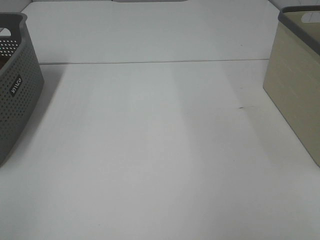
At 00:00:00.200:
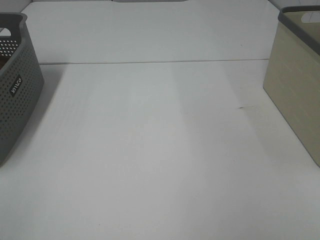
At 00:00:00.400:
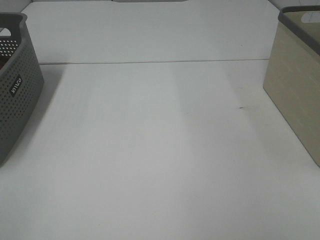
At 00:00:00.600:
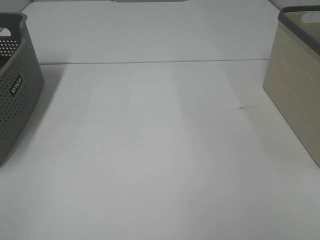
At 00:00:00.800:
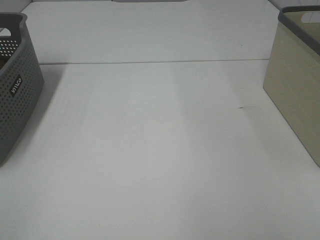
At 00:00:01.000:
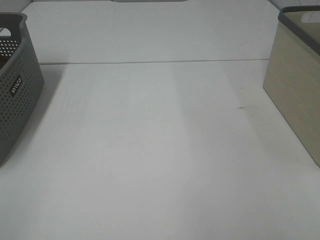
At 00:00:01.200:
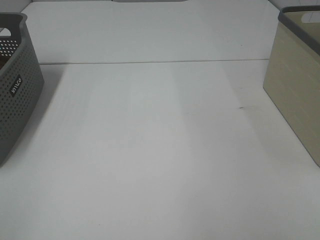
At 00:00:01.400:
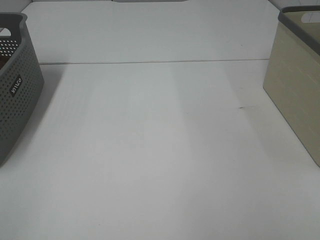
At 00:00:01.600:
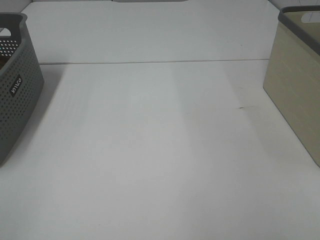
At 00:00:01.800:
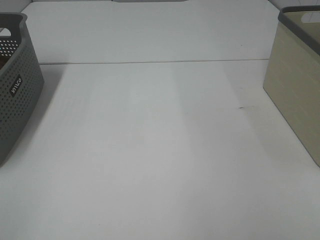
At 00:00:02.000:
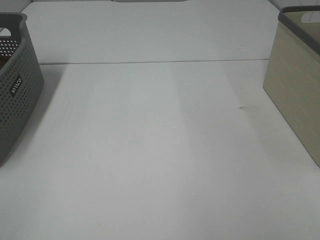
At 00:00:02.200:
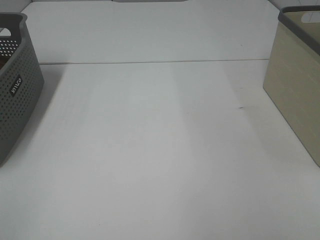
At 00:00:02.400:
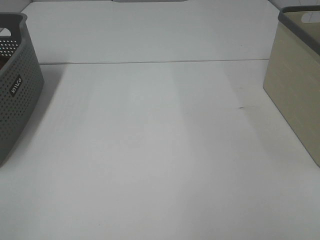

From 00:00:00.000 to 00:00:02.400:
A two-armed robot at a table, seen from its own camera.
From 00:00:01.200 to 00:00:02.400: The two grippers keep their place.

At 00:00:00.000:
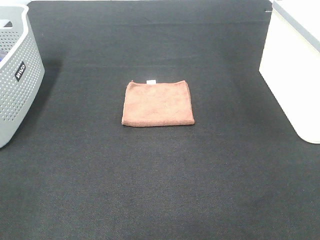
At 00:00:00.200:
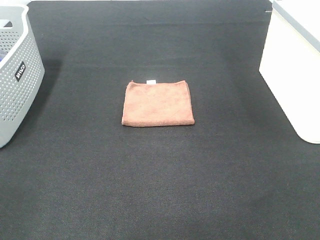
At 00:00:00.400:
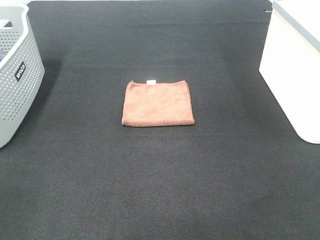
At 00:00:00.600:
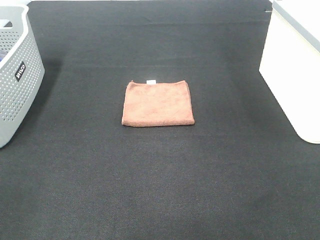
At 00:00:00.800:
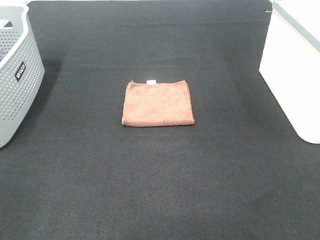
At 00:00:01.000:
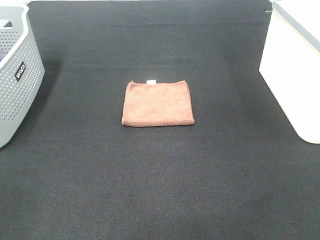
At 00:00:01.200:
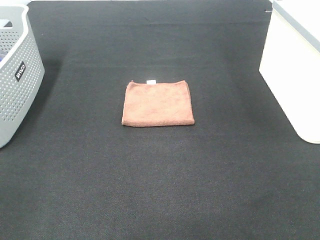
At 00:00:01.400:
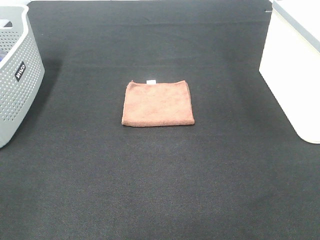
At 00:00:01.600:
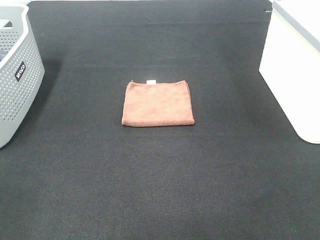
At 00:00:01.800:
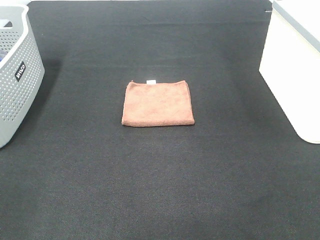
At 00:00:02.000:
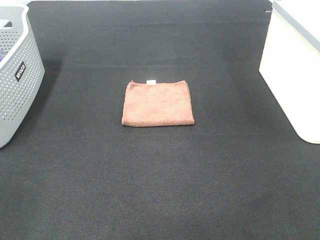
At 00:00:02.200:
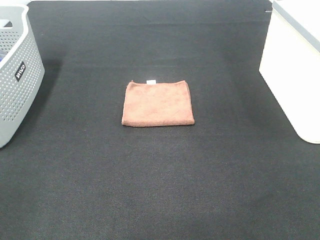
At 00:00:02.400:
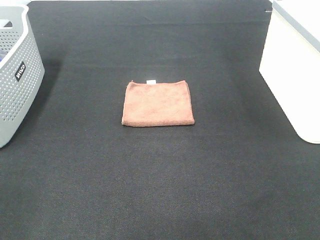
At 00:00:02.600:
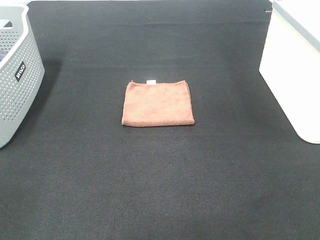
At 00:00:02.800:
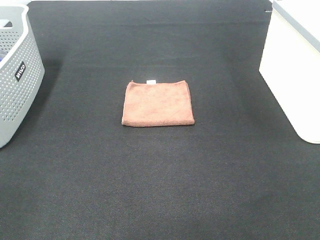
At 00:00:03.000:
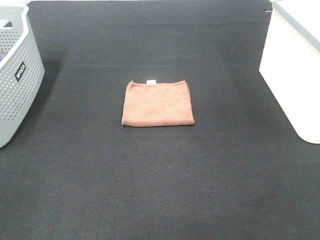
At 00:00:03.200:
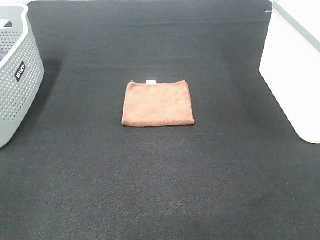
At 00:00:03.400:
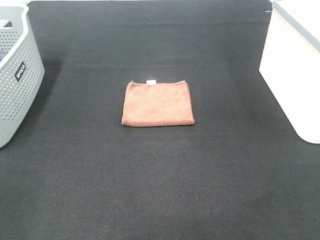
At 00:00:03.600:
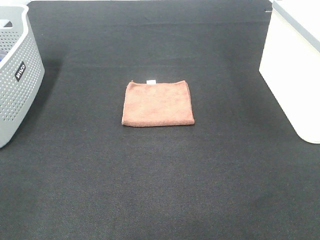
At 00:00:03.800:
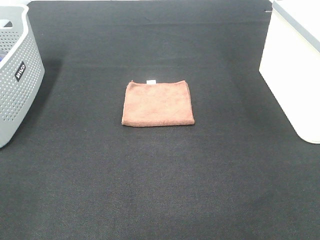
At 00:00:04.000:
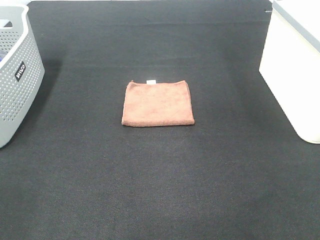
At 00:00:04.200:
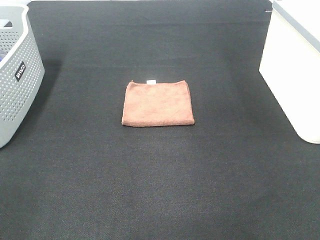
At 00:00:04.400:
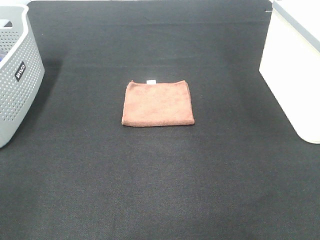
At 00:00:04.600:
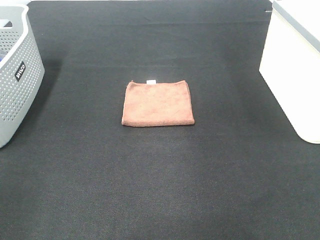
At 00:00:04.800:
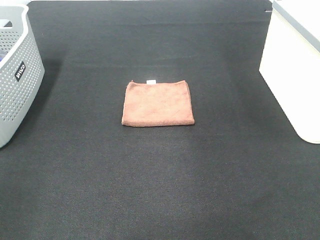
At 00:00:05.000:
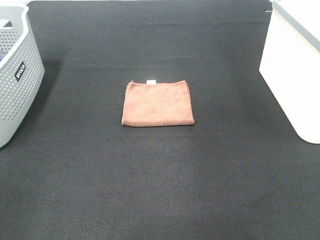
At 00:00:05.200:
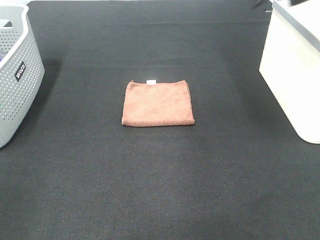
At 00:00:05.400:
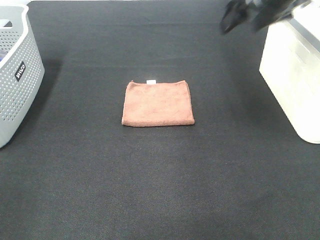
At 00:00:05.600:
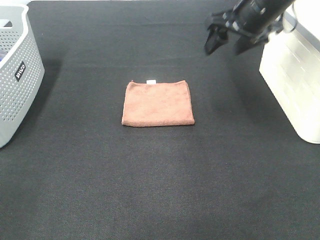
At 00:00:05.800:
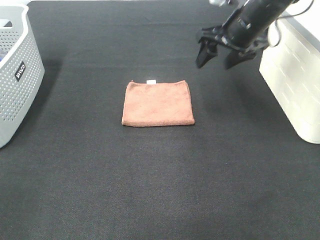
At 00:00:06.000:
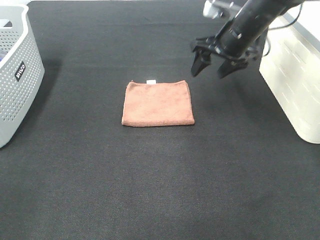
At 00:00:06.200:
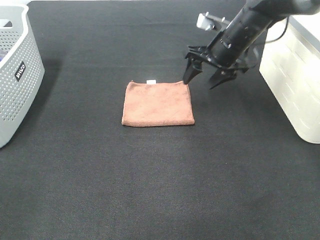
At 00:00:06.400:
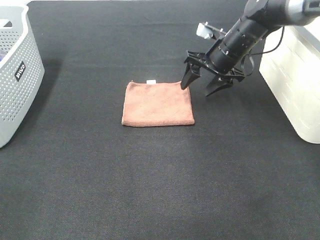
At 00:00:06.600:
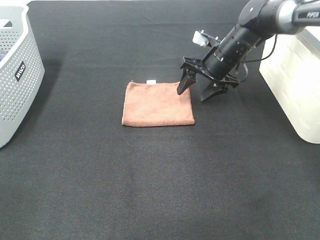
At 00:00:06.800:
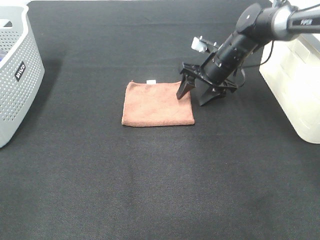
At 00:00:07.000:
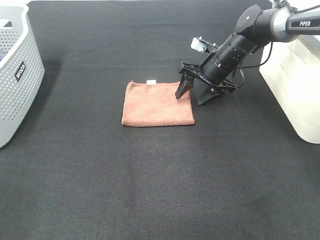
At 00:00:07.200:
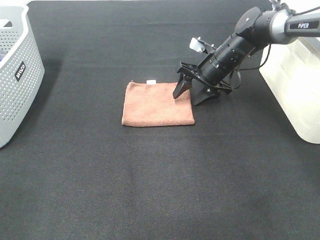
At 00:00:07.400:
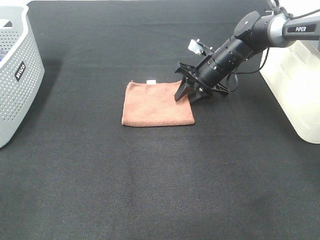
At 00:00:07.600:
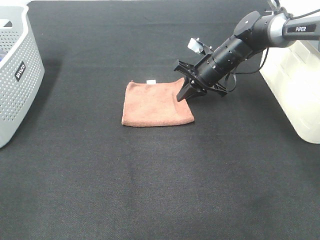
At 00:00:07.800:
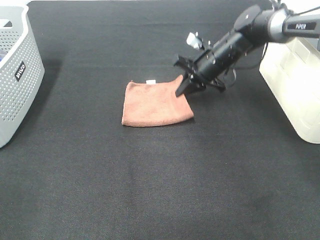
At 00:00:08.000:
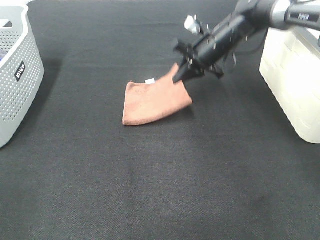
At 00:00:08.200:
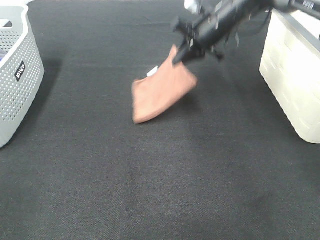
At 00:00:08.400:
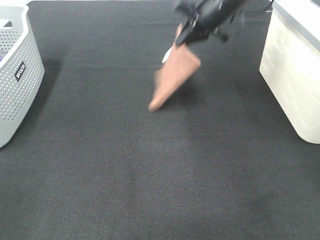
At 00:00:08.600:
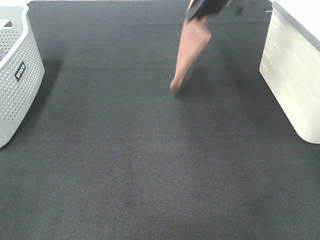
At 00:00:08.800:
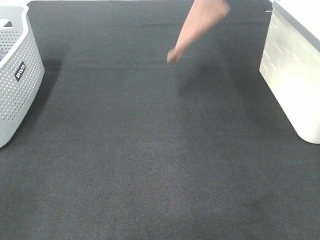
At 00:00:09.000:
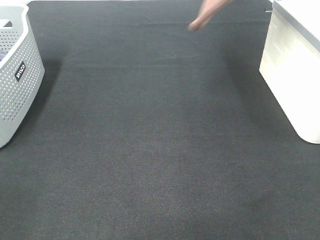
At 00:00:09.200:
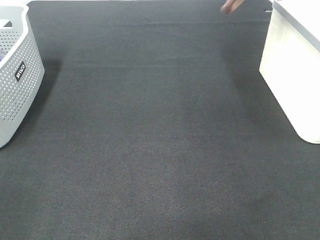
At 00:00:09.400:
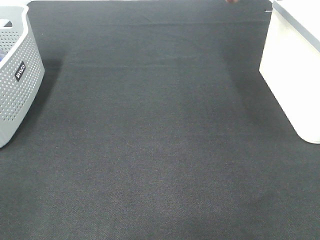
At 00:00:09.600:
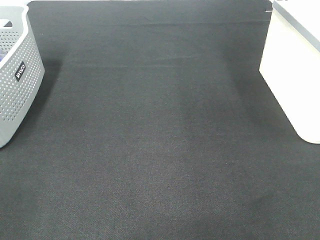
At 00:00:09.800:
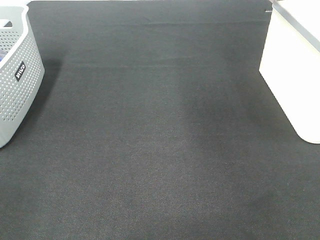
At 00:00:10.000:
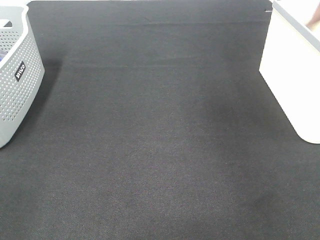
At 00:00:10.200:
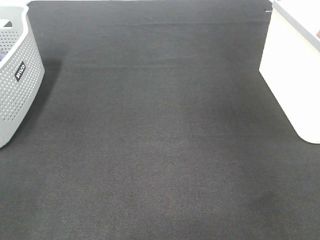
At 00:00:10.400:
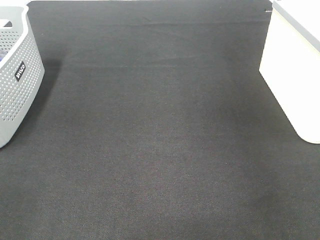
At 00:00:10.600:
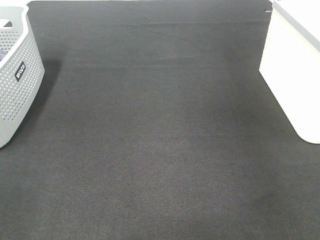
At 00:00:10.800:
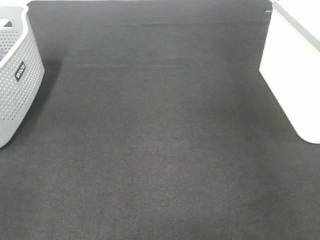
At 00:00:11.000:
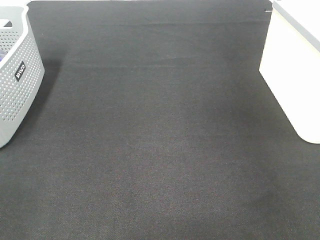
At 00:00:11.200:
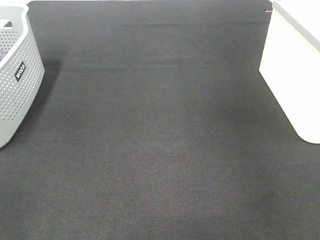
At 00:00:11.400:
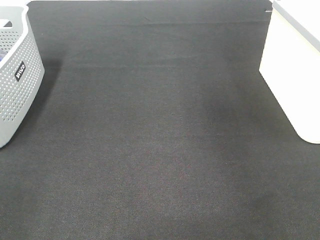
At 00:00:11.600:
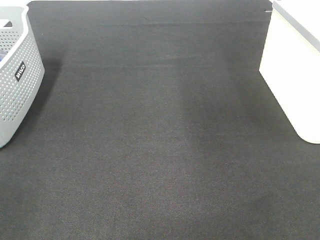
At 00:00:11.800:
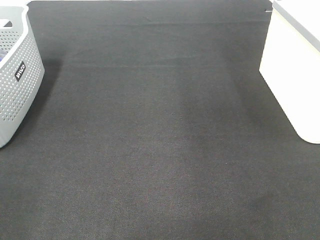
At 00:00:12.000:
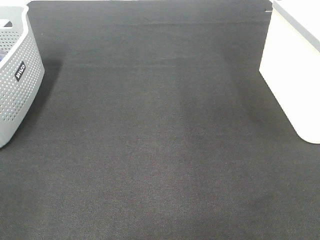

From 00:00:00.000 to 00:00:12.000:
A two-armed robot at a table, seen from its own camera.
Step, from 00:00:00.000 to 00:00:07.400: Right hand: grab the folded brown towel.
Step, from 00:00:07.600 to 00:00:11.000: Right hand: place the brown towel in right basket.
From 00:00:00.000 to 00:00:03.000: Both grippers stay about where they are.
From 00:00:04.400 to 00:00:06.000: The right gripper moves forward, downward and to the left, about 35 cm.
From 00:00:06.000 to 00:00:07.600: The right gripper goes some 10 cm downward, and closes.
From 00:00:07.600 to 00:00:09.000: The right gripper heads upward, covering approximately 35 cm.
From 00:00:09.000 to 00:00:10.400: The right gripper heads to the right and downward, covering approximately 20 cm.

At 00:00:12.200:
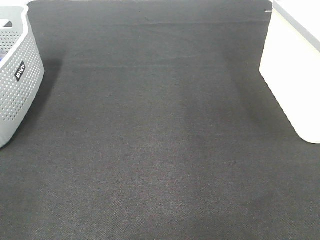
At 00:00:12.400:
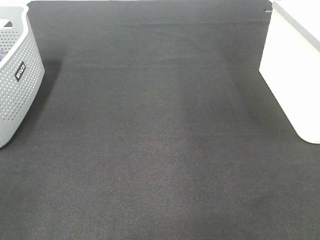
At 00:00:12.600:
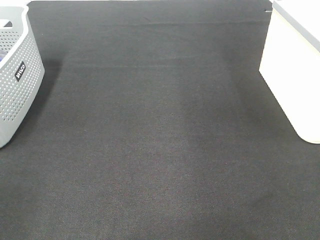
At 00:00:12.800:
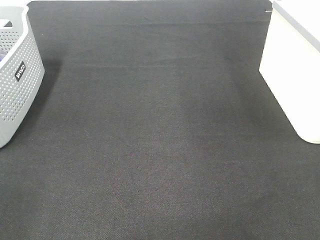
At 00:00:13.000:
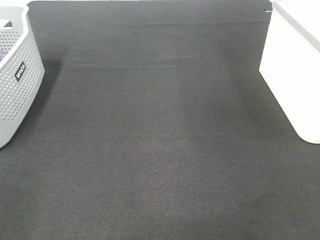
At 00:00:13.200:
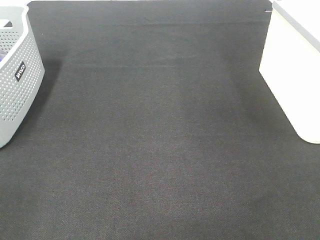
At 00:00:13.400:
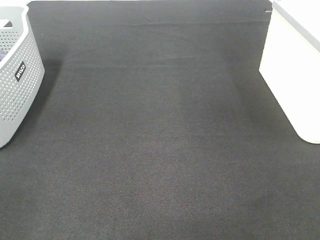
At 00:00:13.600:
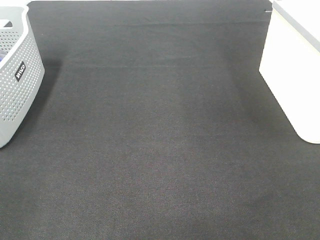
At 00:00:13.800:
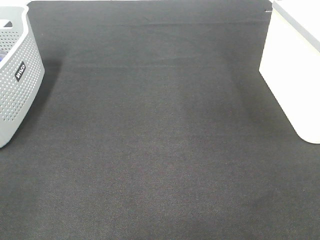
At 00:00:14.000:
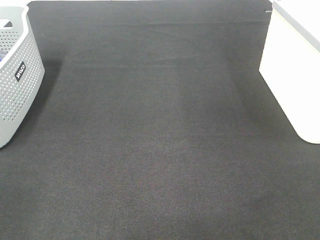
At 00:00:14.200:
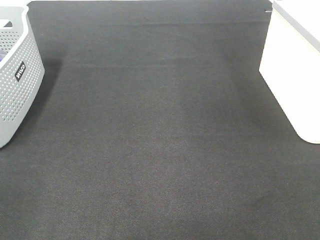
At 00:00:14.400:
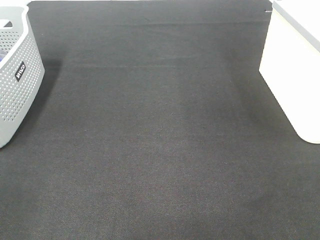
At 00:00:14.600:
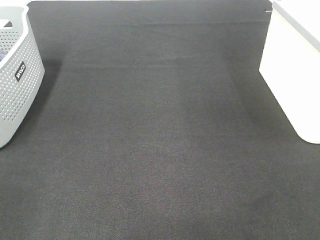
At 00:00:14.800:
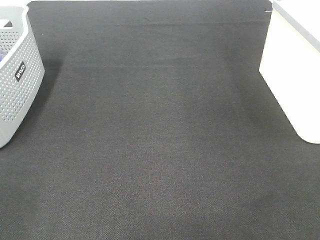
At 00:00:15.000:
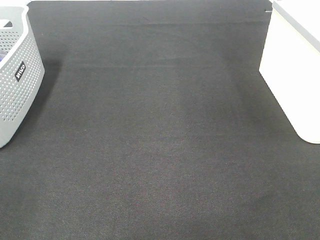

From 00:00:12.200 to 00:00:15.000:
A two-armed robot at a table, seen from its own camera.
From 00:00:13.600 to 00:00:15.000: The two grippers keep their place.
